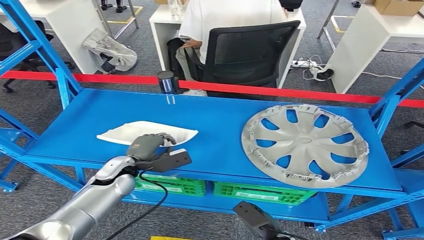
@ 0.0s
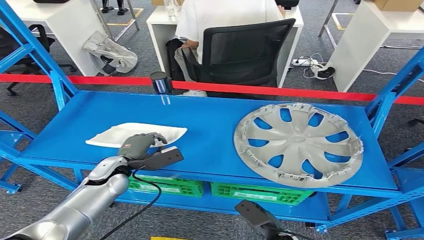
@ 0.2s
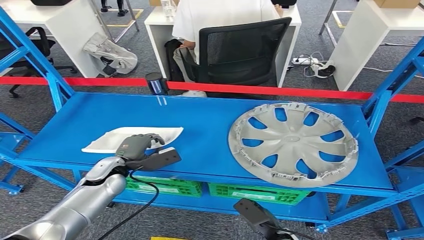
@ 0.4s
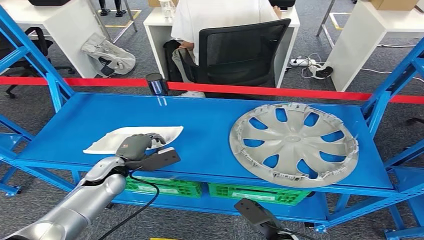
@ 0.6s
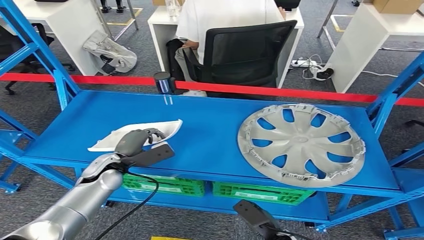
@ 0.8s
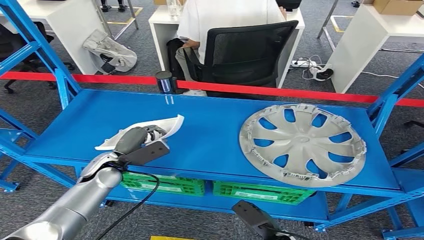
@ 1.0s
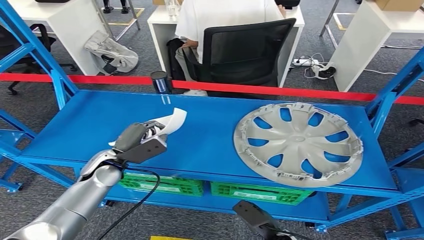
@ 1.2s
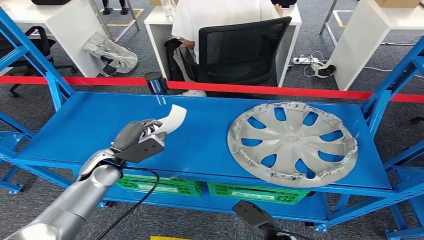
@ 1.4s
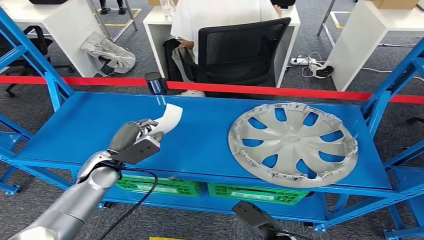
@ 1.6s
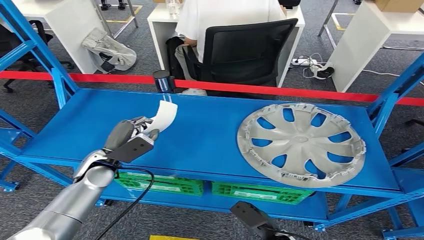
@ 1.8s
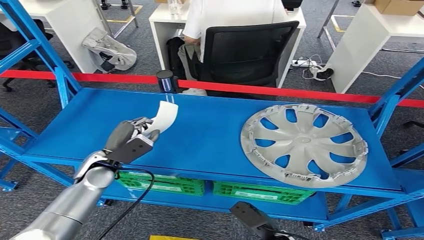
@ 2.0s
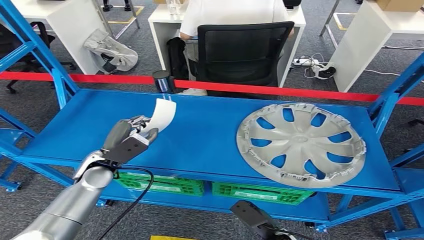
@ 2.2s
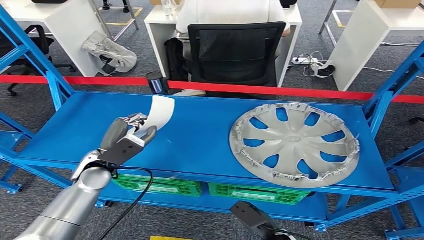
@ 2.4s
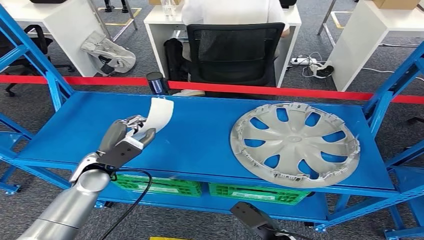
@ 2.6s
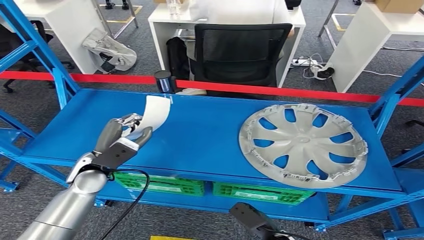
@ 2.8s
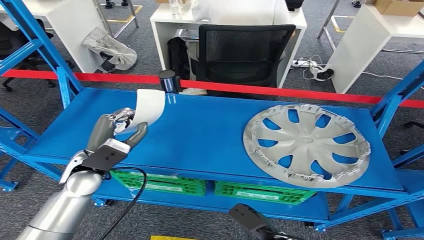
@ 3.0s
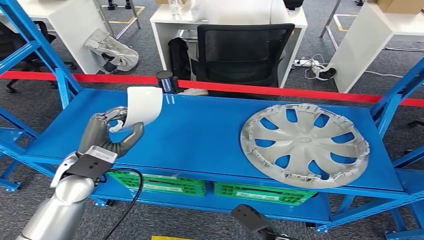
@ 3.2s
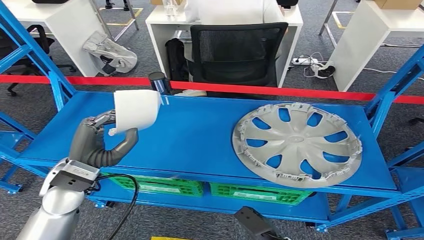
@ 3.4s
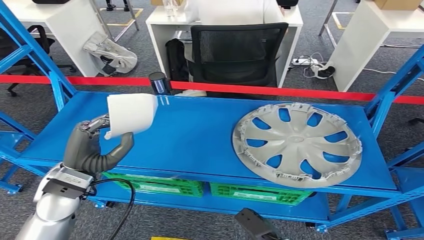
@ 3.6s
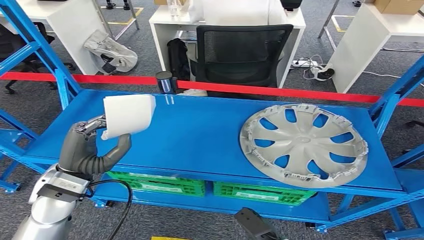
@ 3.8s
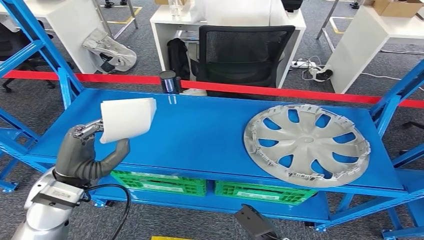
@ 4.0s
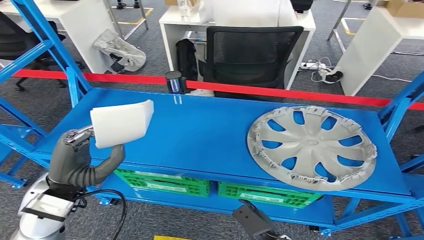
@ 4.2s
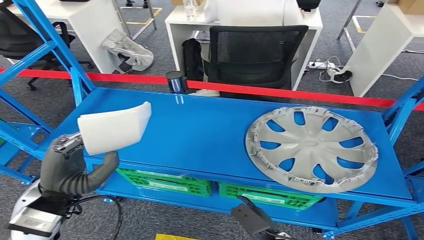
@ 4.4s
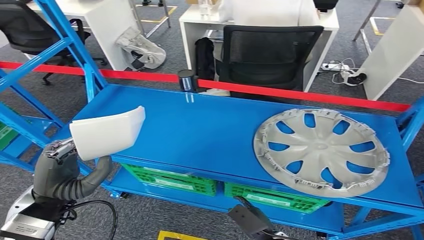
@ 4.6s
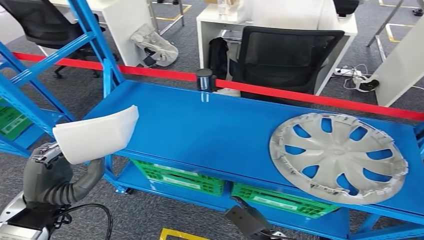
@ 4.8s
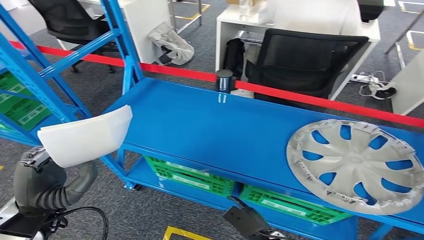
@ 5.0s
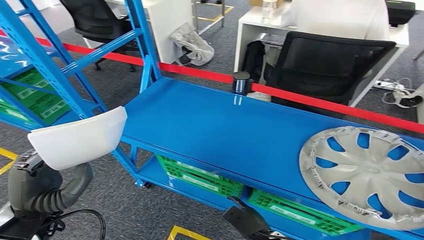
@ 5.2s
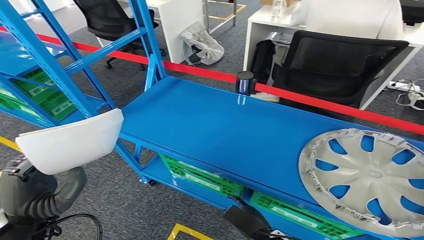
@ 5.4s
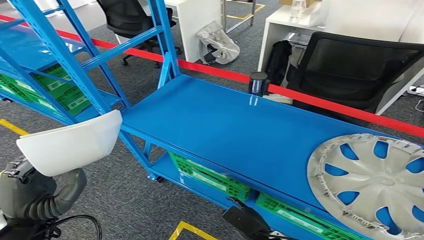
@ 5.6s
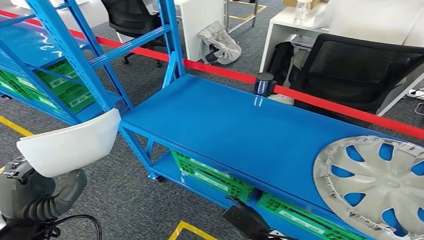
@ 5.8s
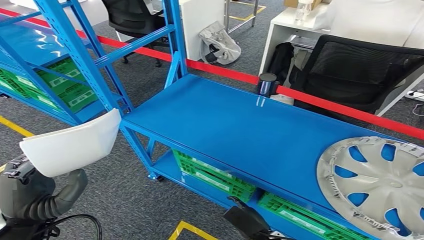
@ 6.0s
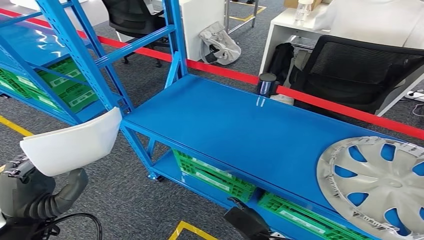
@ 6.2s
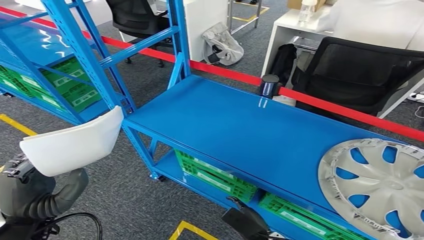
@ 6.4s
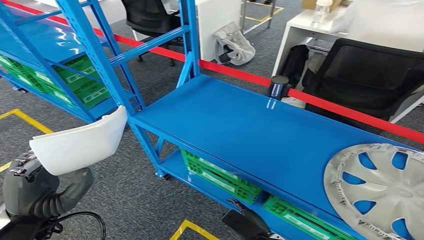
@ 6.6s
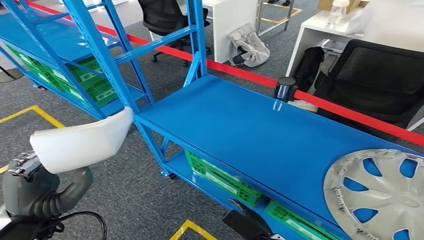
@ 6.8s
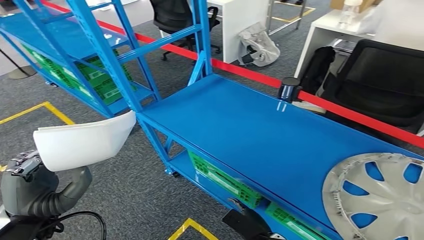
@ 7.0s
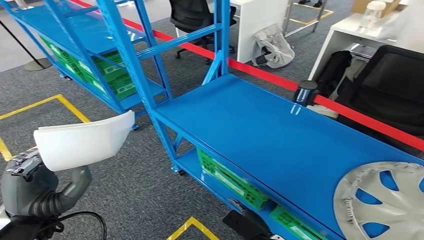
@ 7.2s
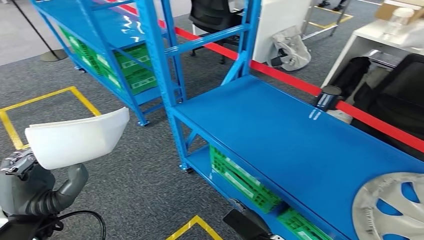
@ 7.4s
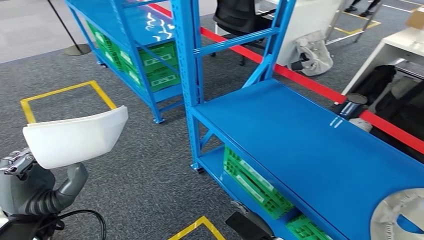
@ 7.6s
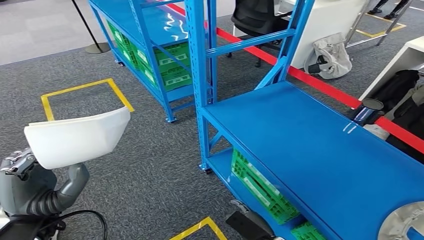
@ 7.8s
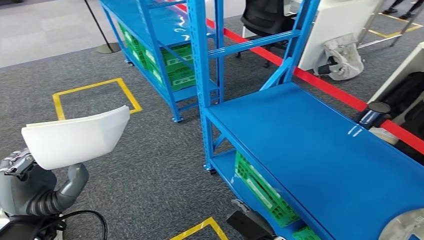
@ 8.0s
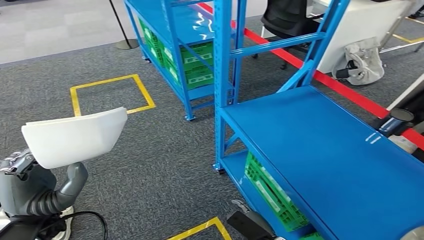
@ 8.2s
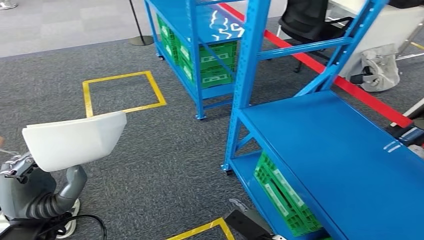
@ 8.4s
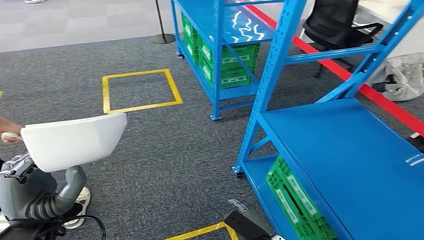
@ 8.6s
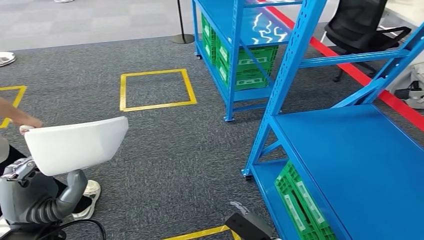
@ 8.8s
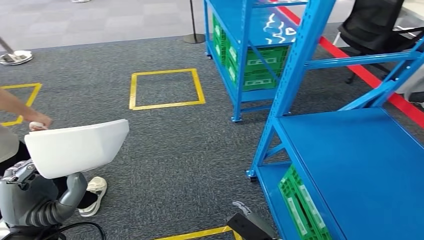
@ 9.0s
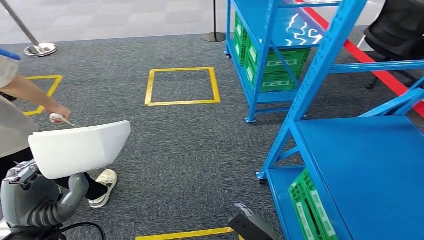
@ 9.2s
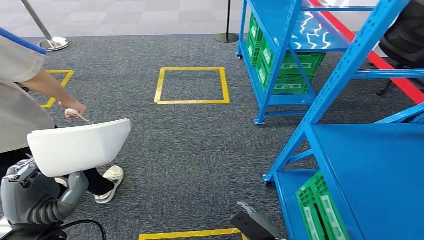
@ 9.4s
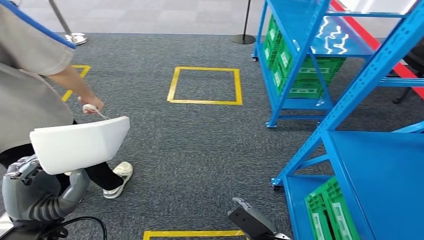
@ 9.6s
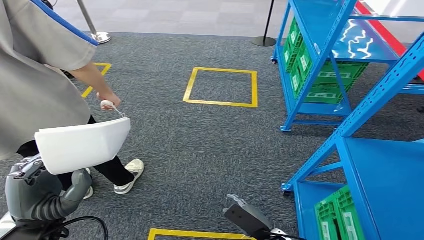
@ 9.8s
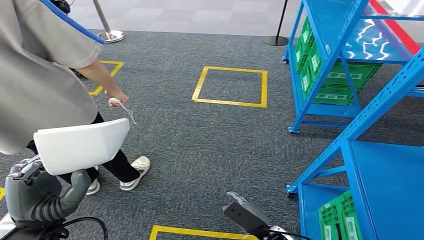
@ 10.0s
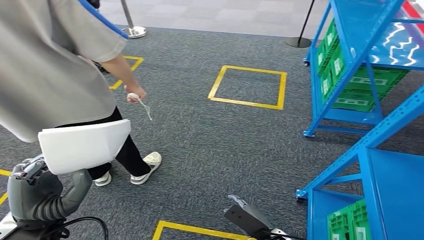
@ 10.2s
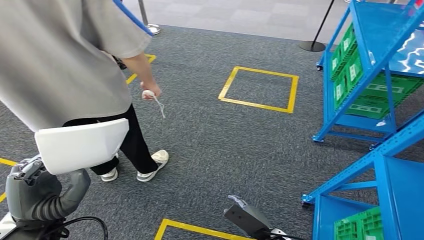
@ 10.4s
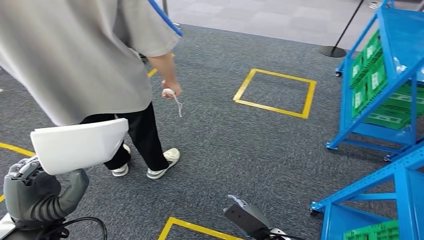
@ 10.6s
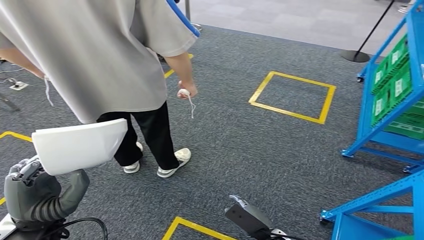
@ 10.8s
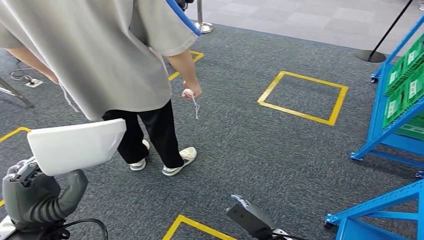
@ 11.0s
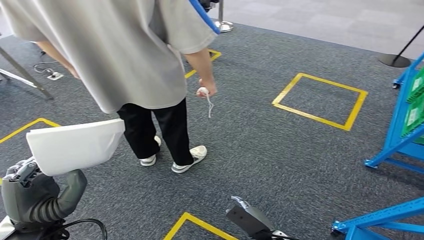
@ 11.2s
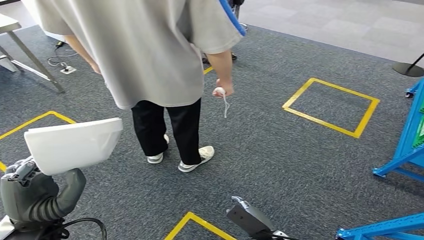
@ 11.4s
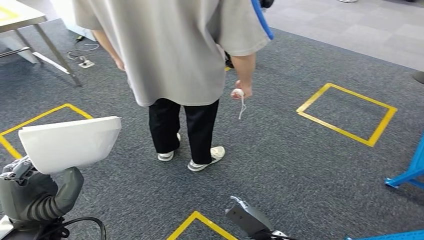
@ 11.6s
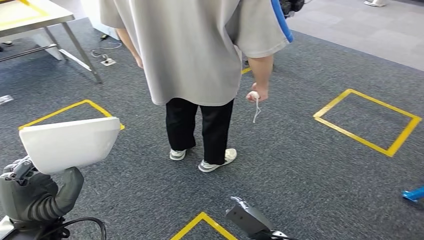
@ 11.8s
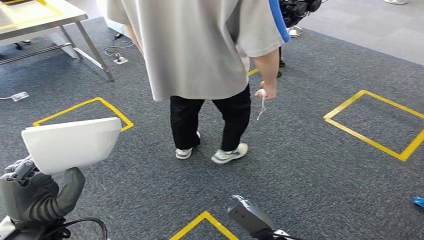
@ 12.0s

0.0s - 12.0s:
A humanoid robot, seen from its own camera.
Step, 0.0s - 2.2s: Pick up the small parts from the shelf.

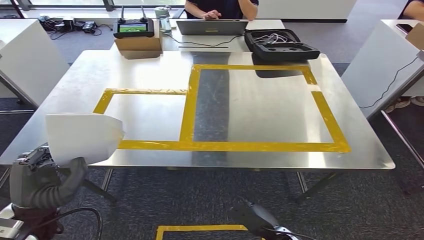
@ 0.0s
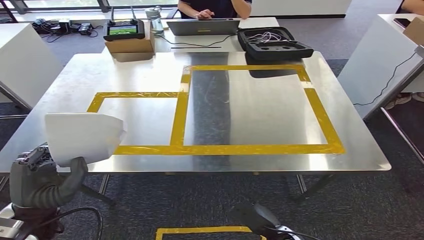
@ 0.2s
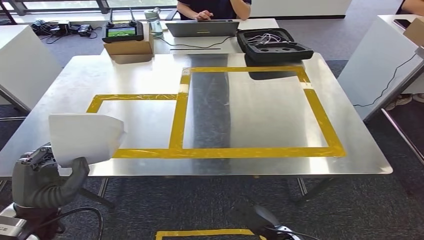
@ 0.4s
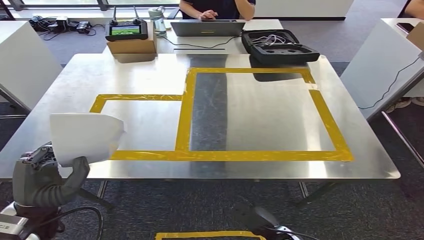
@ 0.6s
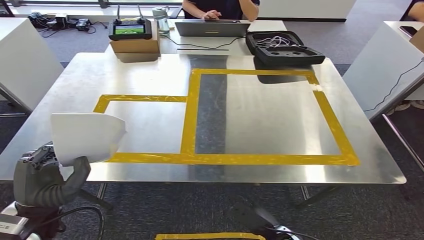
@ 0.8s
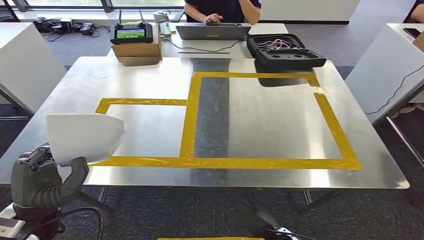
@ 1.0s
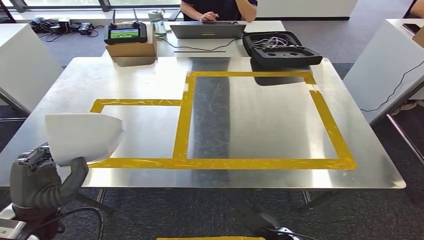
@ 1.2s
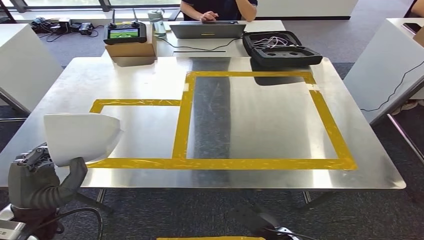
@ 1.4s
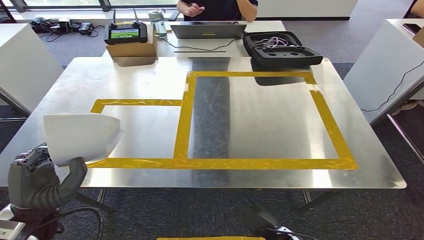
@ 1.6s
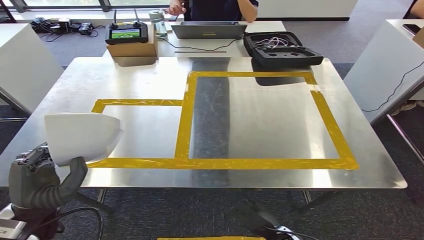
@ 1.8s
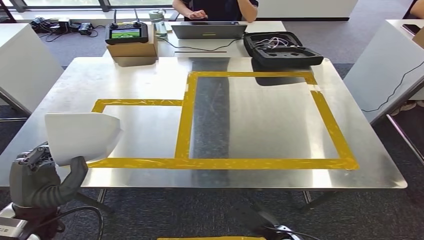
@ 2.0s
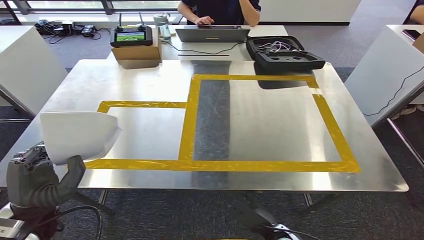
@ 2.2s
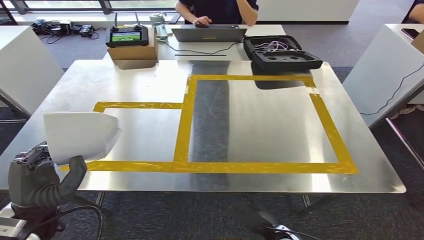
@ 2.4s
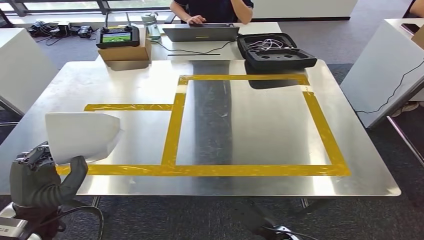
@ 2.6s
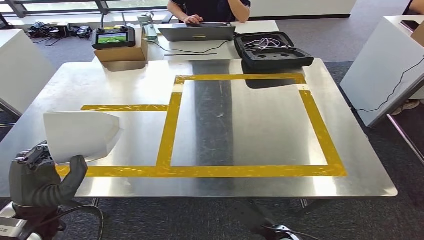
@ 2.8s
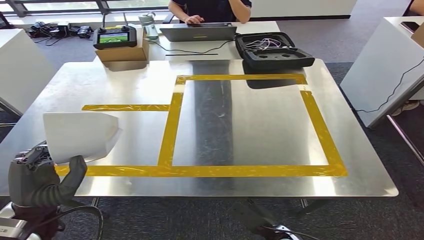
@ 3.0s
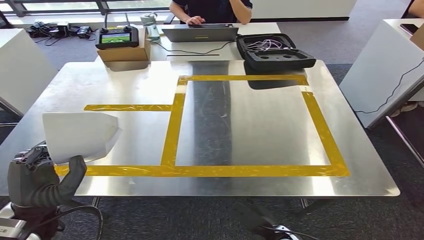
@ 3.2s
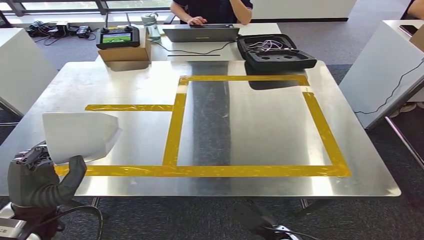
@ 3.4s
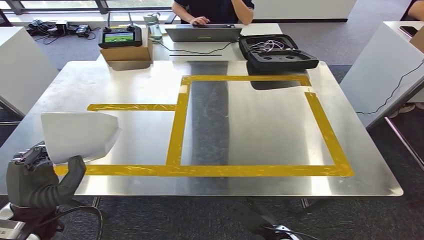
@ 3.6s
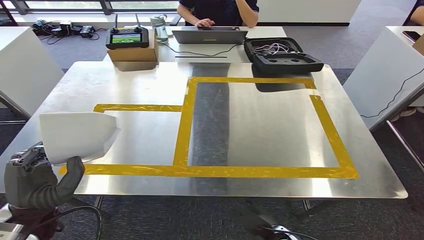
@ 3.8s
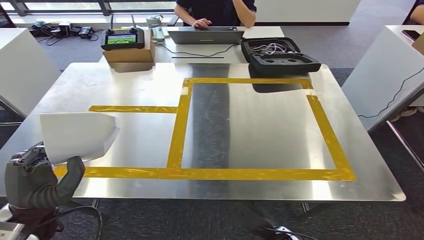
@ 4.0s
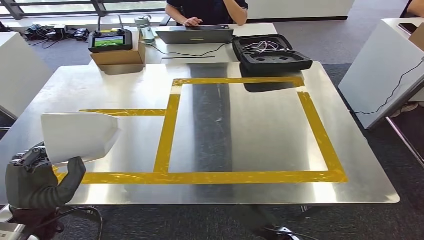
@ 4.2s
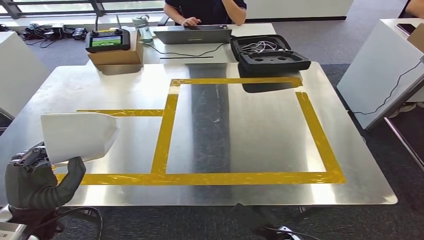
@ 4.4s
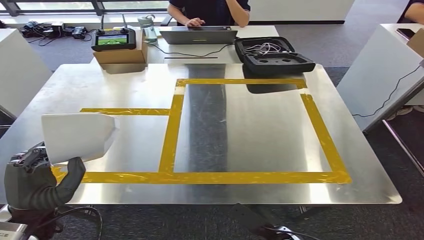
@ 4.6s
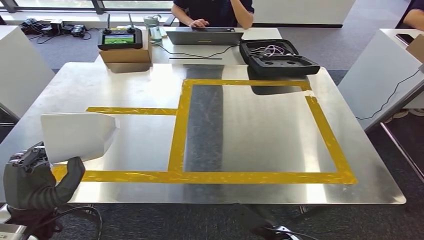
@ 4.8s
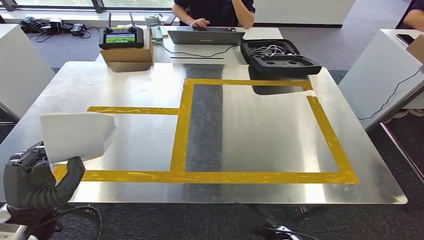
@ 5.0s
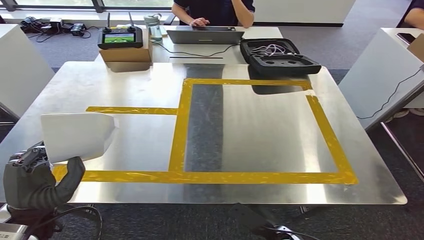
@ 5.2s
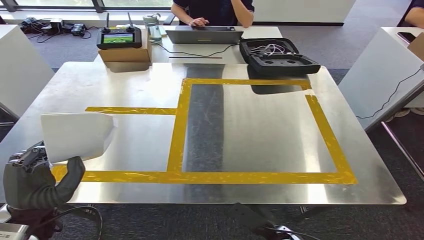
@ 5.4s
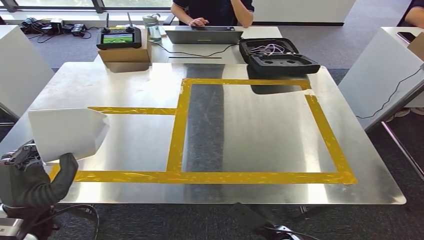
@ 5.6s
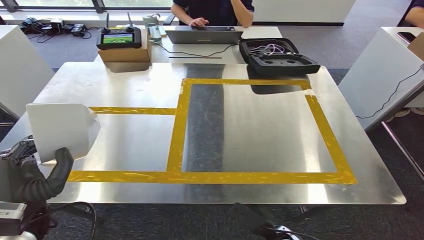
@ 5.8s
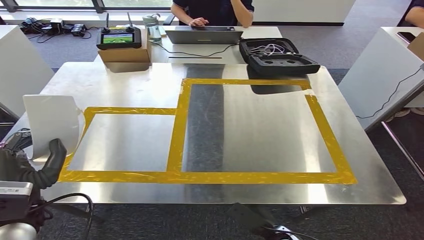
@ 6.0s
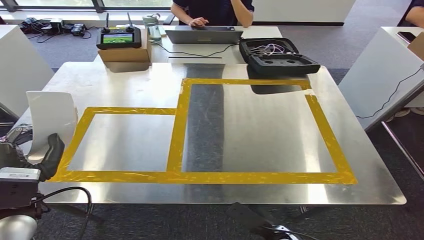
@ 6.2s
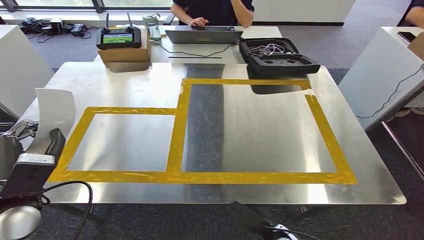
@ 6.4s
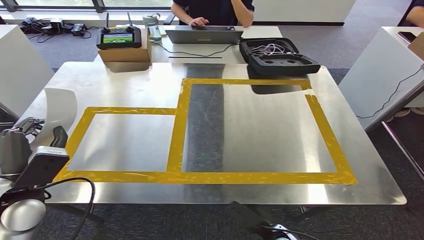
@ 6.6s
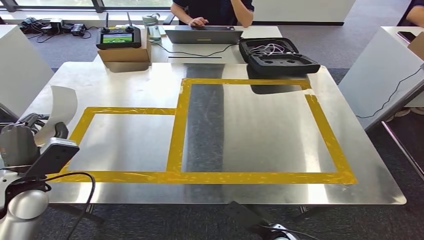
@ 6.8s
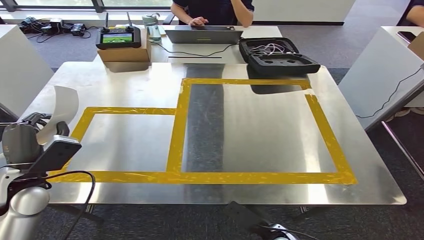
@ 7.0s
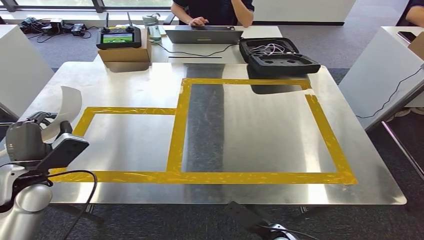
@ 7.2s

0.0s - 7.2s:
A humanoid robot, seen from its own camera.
5.8s - 7.2s: The left hand heads forward and to the left, covering approximately 10 cm.
